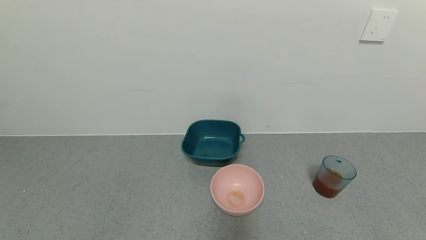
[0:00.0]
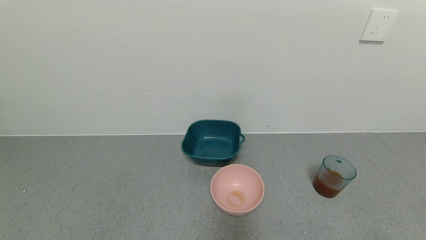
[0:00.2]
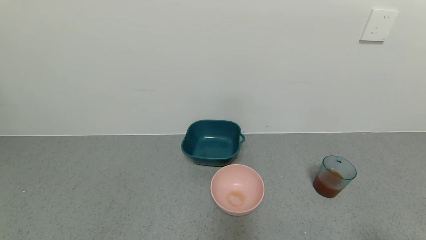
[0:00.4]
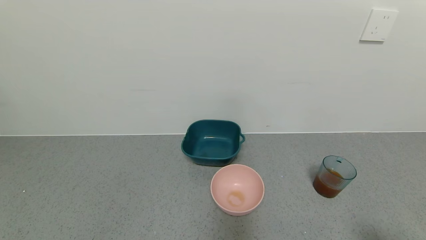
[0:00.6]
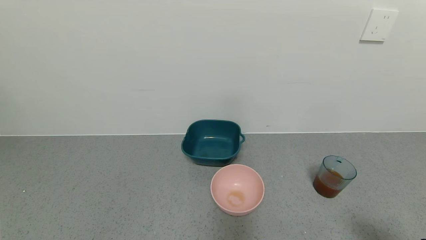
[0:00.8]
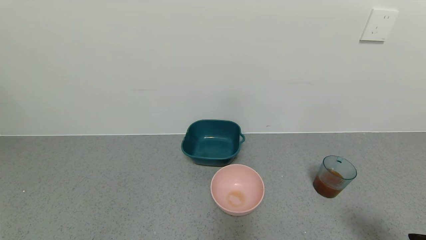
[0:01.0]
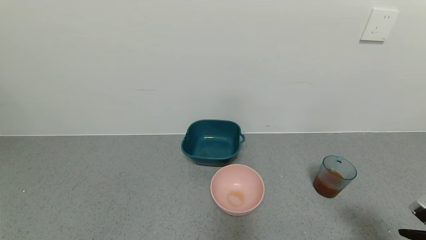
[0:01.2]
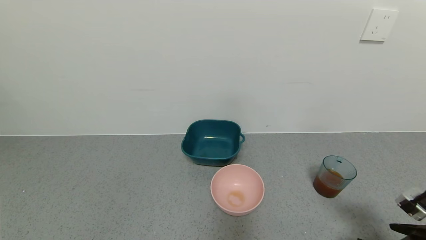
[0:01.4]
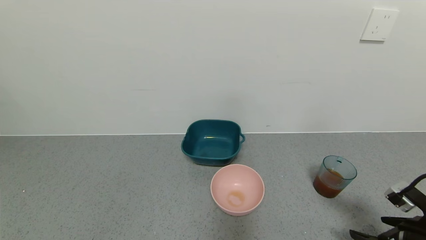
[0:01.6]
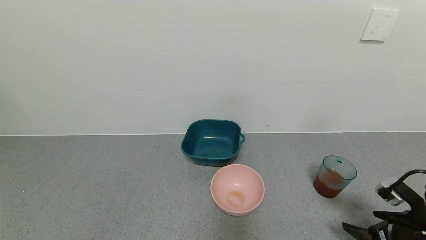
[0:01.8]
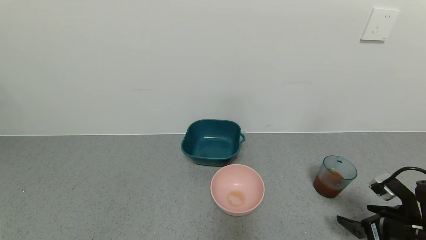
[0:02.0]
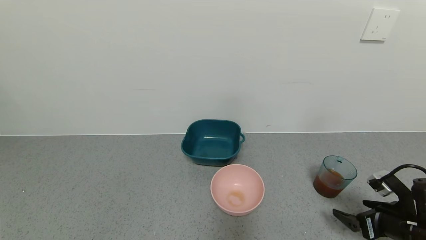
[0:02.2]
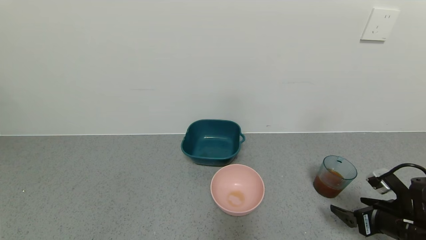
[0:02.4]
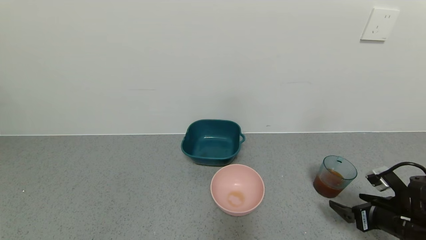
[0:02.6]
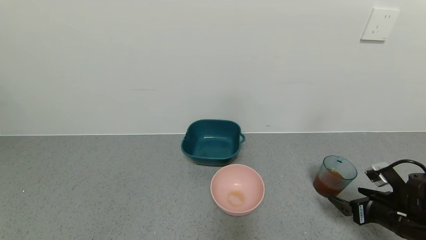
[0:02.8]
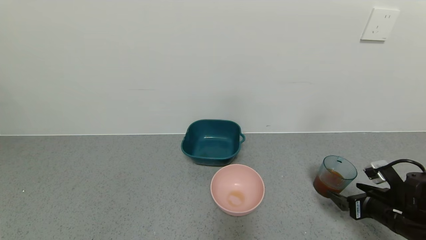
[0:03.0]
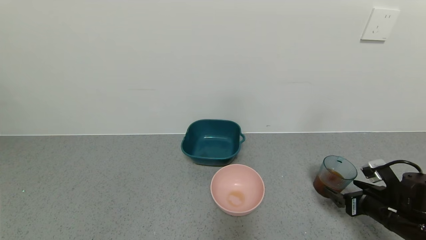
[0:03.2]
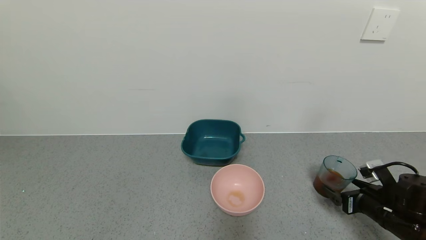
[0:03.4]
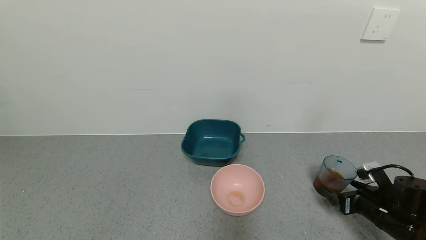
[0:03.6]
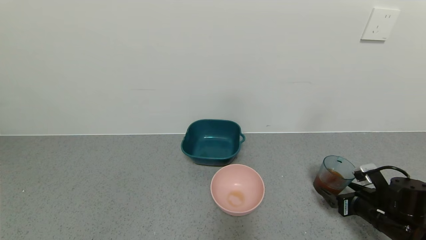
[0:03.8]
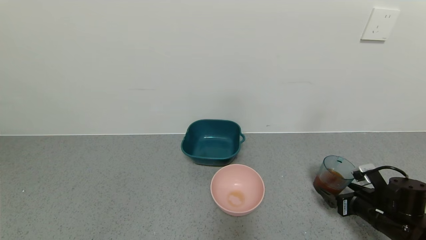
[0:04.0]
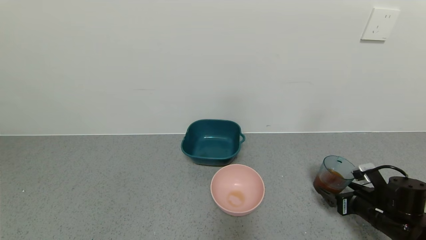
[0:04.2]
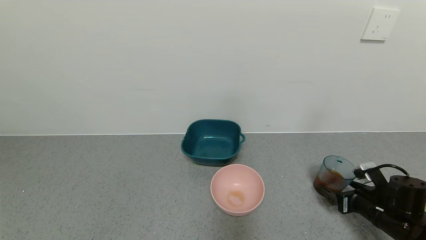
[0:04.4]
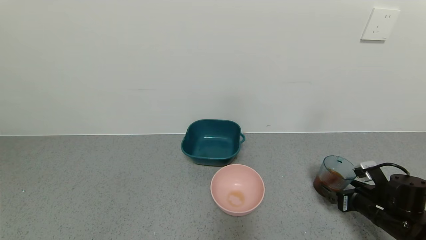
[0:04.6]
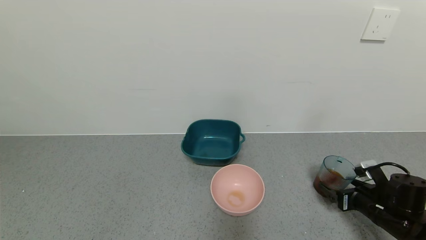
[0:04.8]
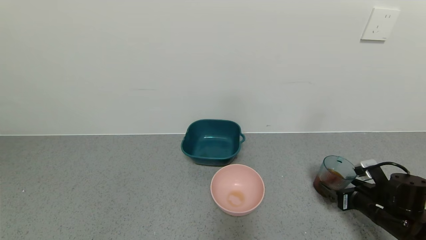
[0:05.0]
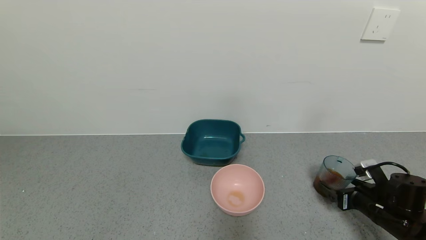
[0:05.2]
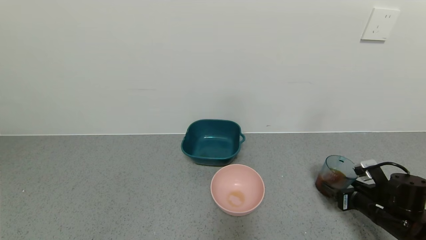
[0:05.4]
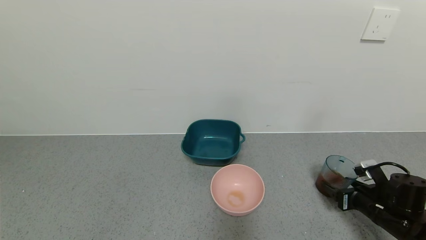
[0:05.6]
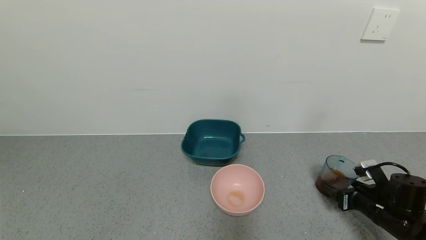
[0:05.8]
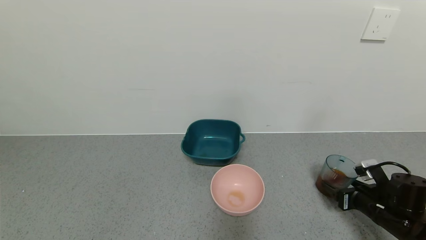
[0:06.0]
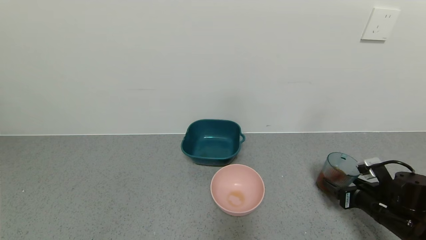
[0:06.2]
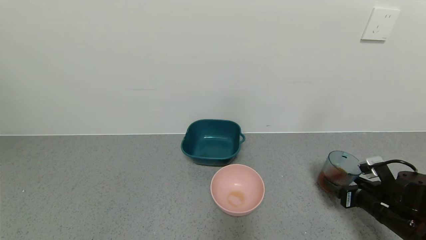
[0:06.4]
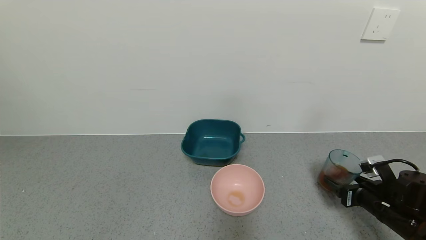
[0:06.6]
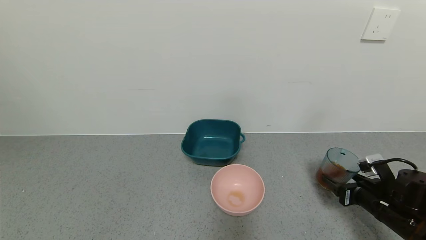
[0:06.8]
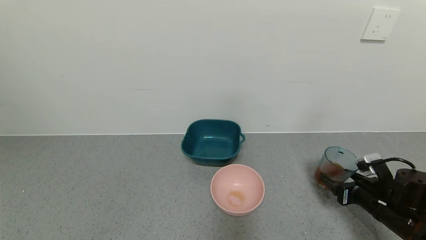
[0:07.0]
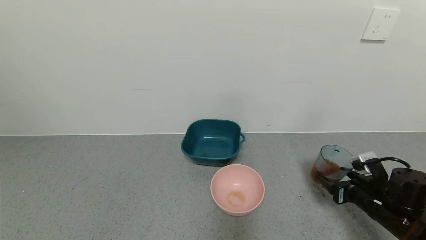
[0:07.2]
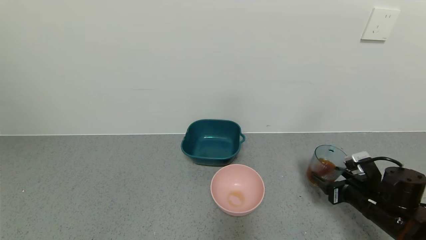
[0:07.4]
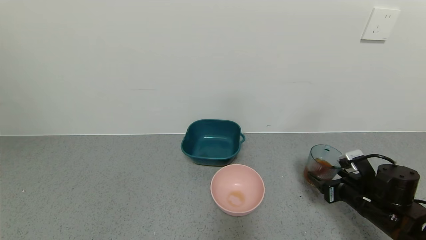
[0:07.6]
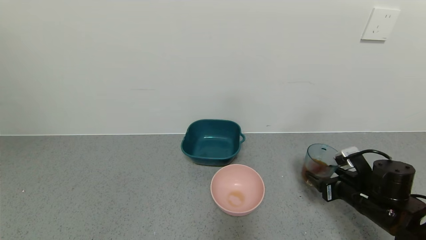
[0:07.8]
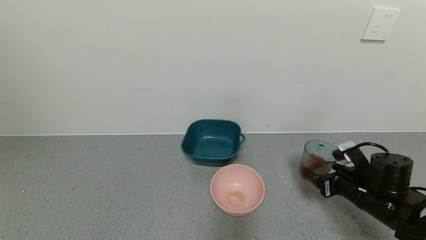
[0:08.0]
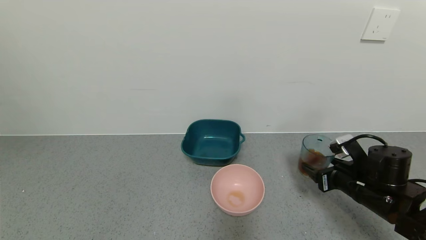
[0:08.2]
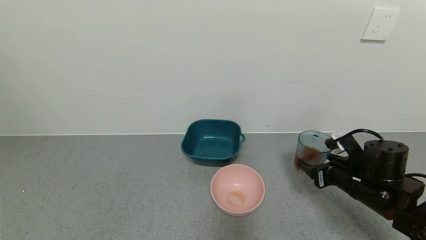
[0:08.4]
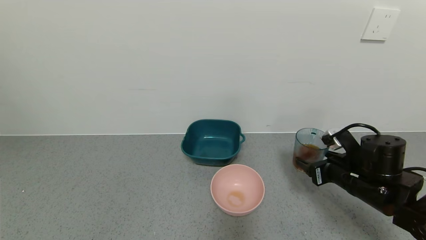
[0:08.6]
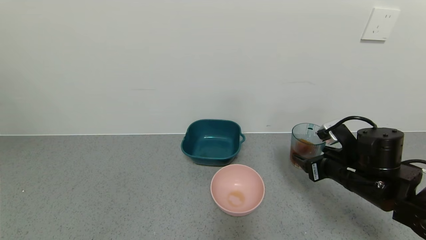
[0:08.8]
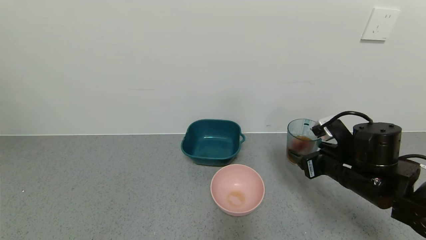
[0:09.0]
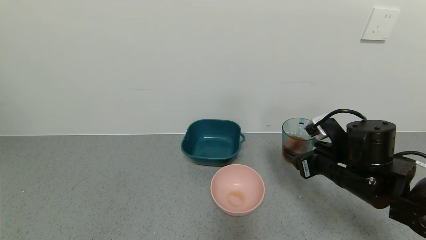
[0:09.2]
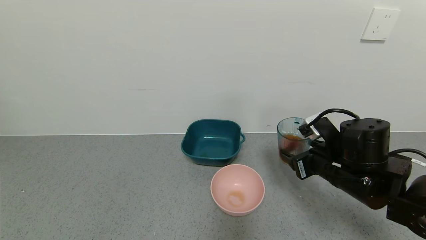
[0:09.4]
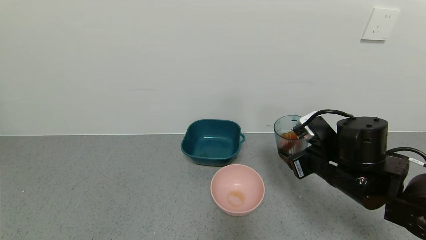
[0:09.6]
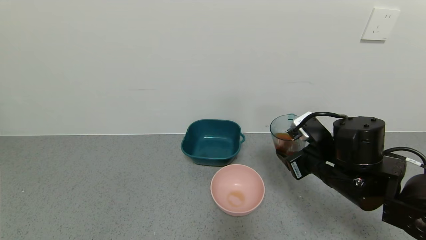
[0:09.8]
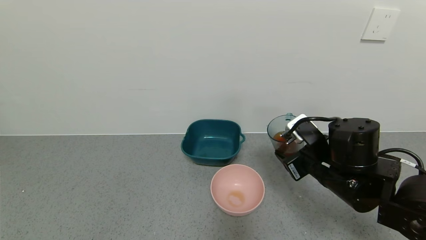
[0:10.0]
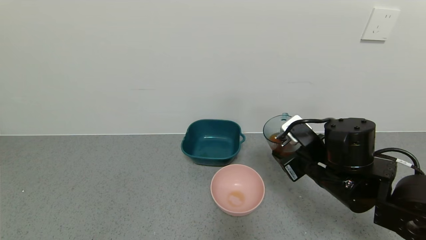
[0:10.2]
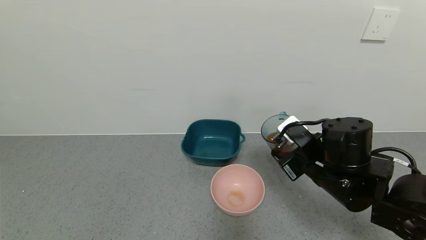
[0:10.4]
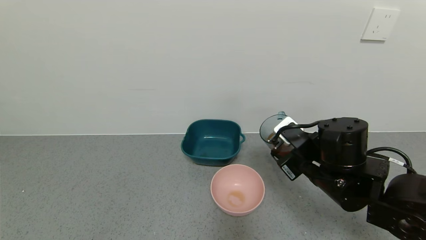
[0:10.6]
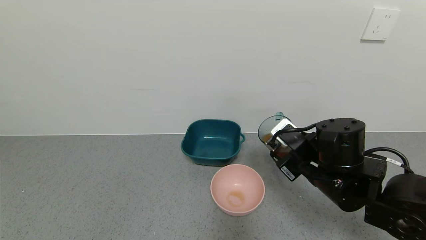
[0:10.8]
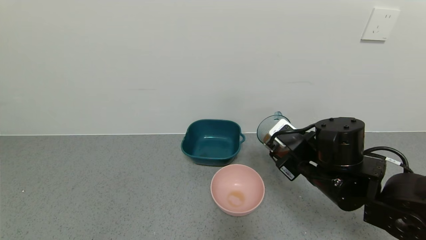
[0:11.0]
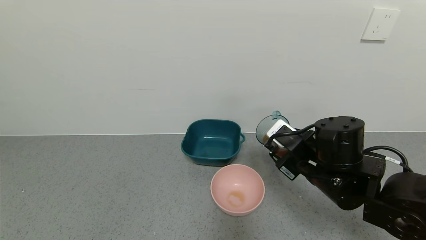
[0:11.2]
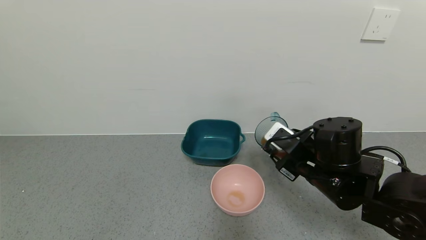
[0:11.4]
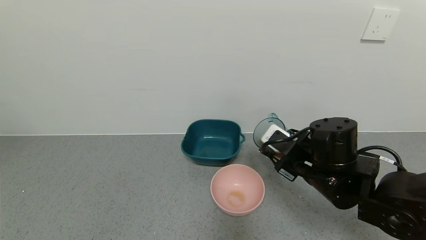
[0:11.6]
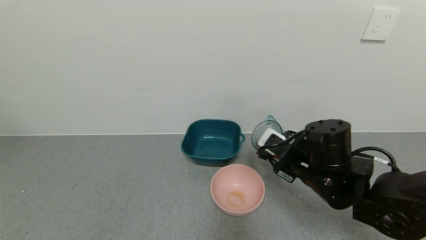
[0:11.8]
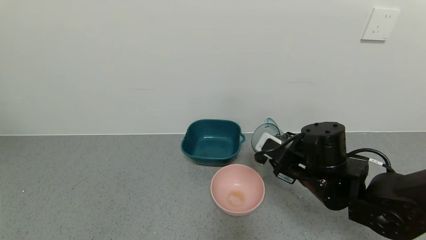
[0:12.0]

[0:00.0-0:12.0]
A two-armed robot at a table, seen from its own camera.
Task of the whole recording: use a gripper to pick up the cup and pour the liquid into a bowl or tray.
Step, 0:00.0 to 0:05.6: Grasp the glass of black tea with the right gripper.
0:00.0 to 0:01.6: The right gripper travels forward by roughly 15 cm.
0:01.6 to 0:03.0: The right gripper moves forward, roughly 5 cm.
0:03.0 to 0:04.4: There are only small adjustments of the grippers.
0:04.4 to 0:06.0: The right gripper closes its fingers.
0:06.0 to 0:07.6: The grippers move only a little.
0:07.6 to 0:09.0: The right gripper moves upward and to the left, about 10 cm.
0:09.0 to 0:10.4: The right gripper shifts roughly 5 cm to the left.

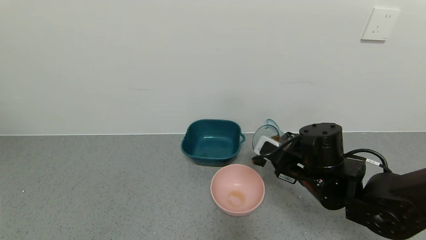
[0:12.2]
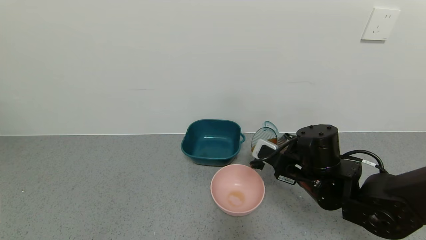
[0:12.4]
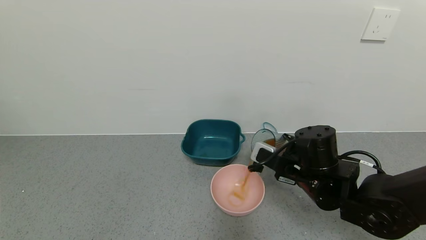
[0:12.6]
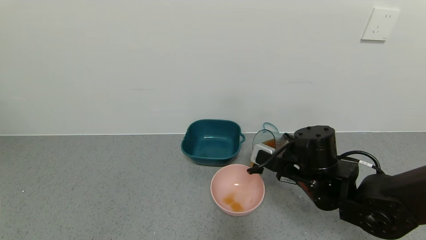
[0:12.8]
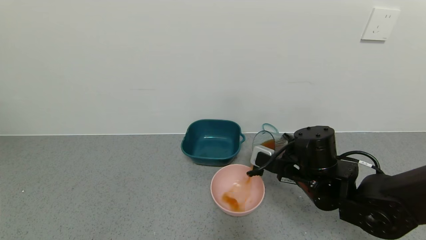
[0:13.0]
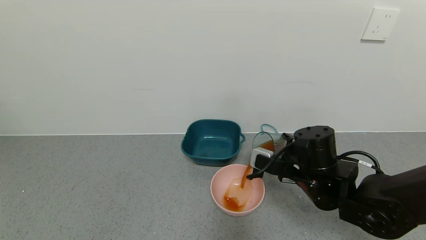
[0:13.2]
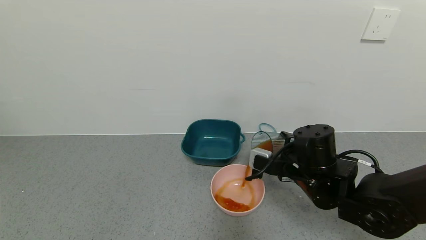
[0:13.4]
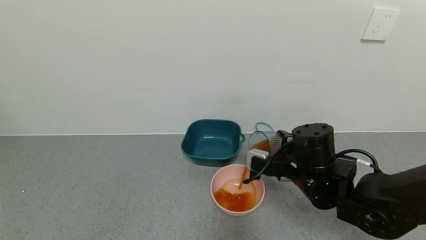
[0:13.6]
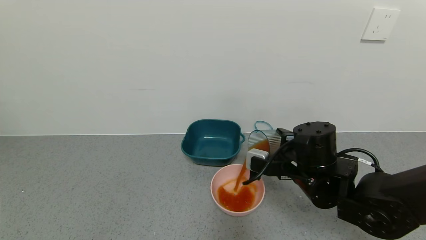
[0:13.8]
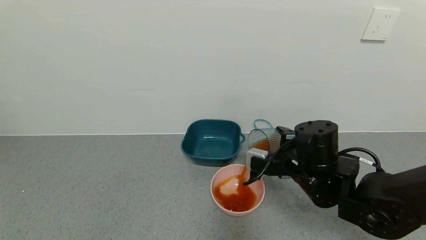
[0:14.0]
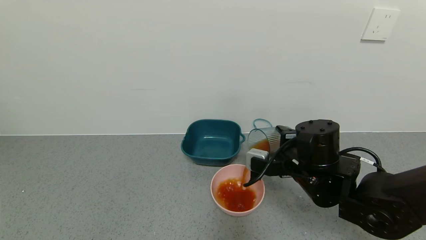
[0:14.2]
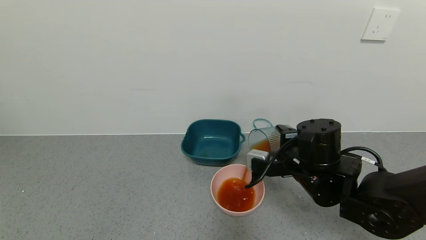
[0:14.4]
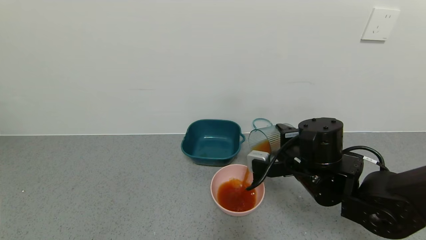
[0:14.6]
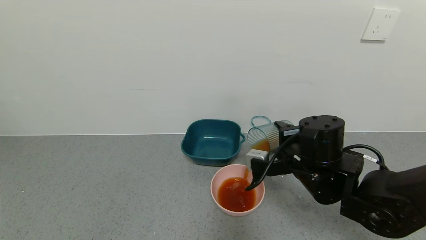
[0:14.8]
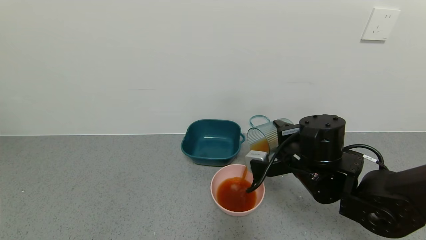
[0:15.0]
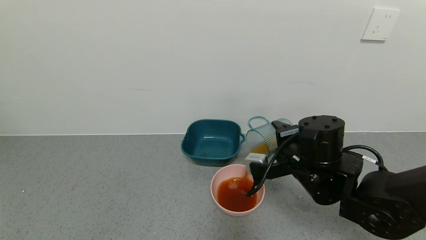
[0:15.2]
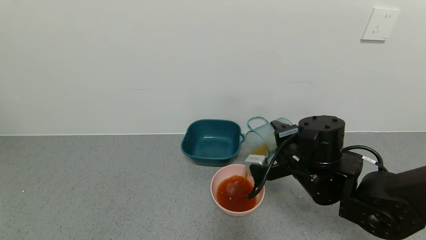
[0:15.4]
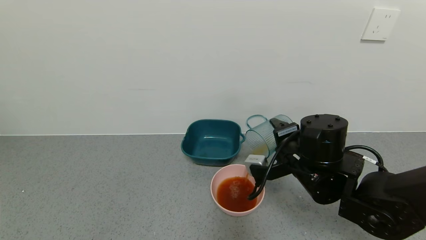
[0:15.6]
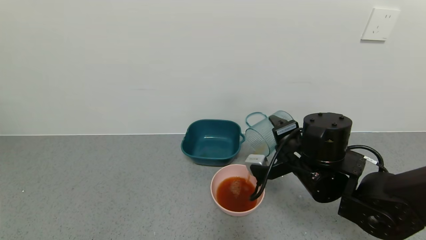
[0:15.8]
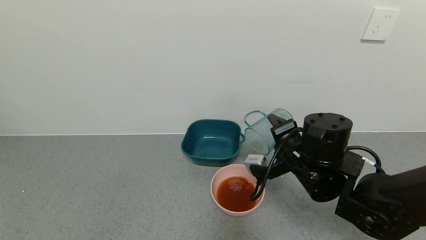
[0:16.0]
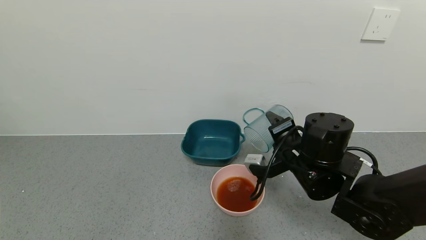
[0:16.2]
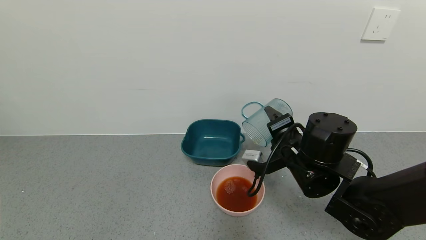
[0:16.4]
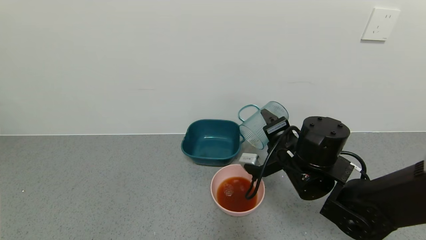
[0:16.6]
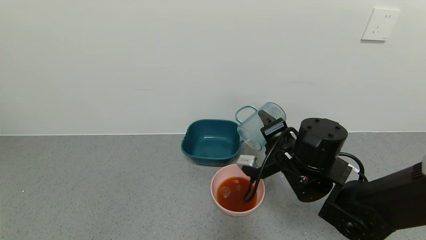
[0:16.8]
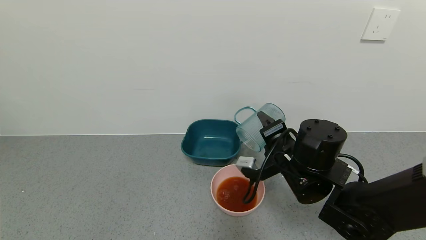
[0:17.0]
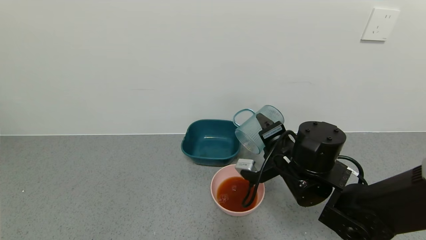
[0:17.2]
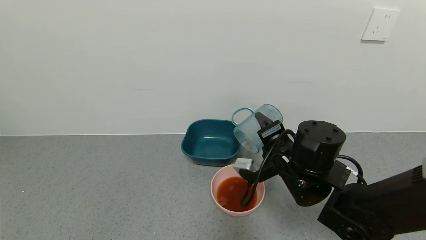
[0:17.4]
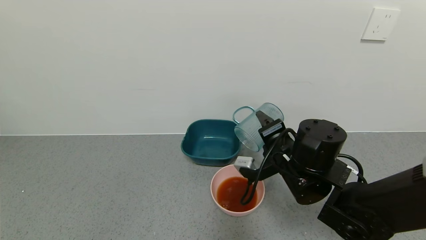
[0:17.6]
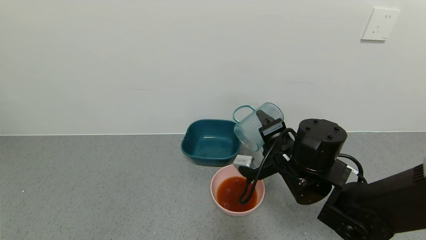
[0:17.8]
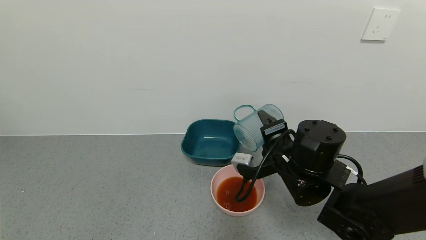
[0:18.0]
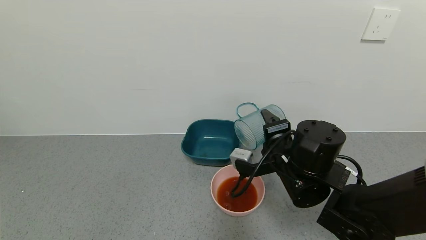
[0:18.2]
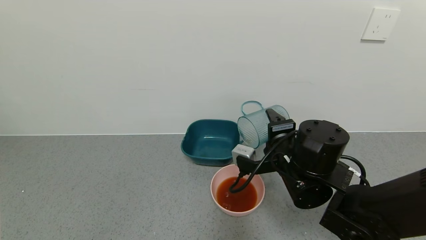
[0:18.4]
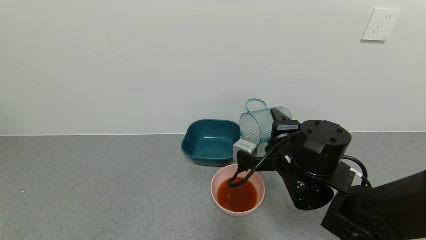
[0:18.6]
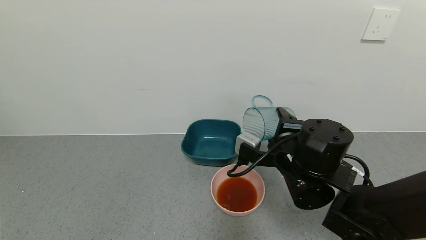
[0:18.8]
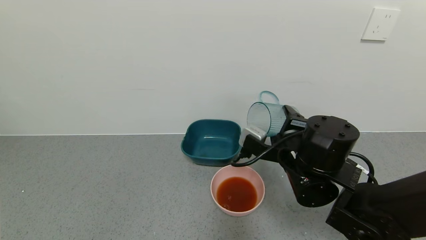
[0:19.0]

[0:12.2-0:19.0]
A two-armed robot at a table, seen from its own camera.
Task of the whole recording: use a gripper to pick up the cup and pour the liquid into a bowl or tray.
0:13.6 to 0:15.0: The grippers stay close to where they were, moving slightly.
0:16.2 to 0:17.6: There are only small adjustments of the grippers.
